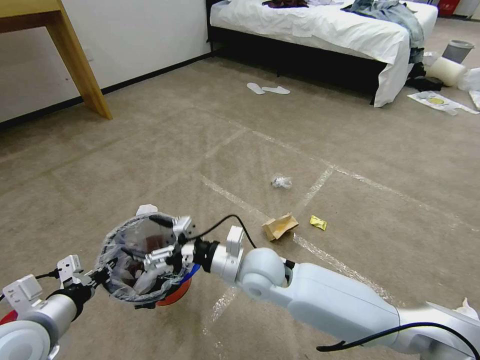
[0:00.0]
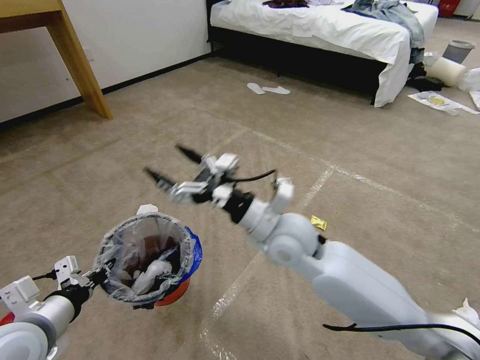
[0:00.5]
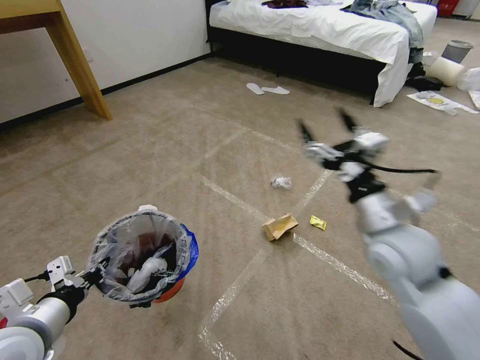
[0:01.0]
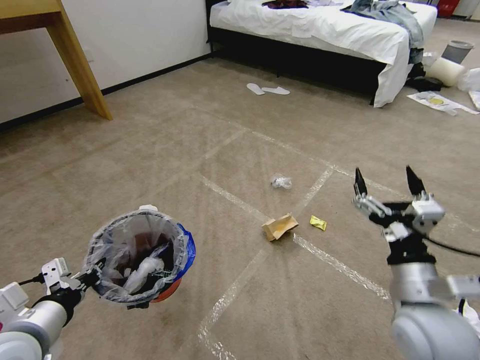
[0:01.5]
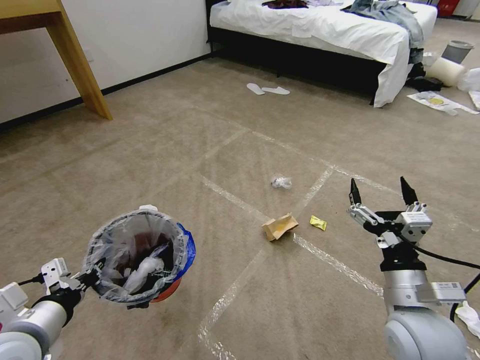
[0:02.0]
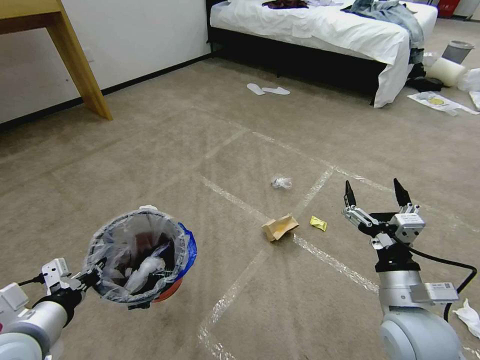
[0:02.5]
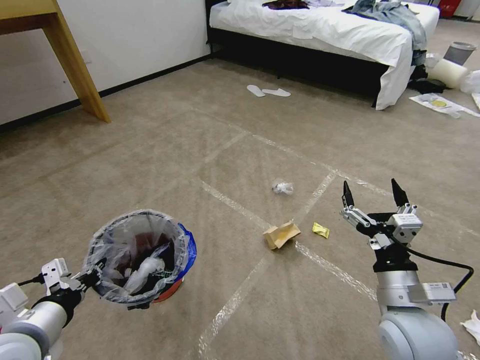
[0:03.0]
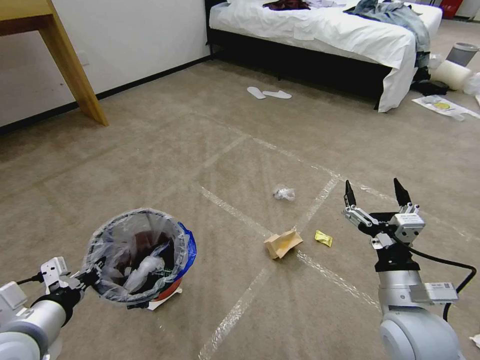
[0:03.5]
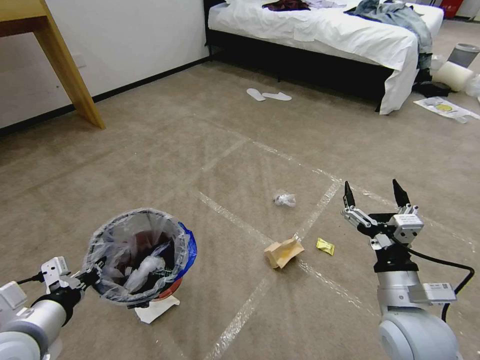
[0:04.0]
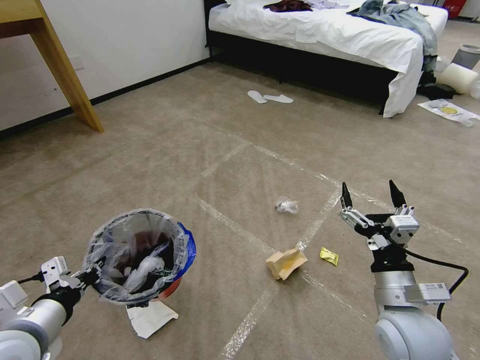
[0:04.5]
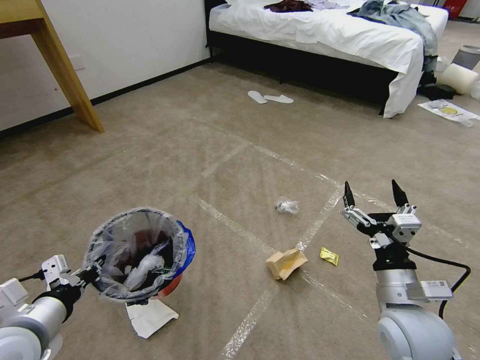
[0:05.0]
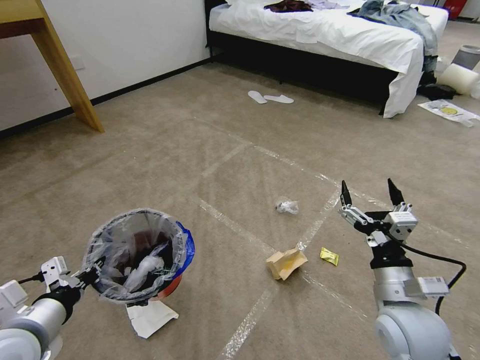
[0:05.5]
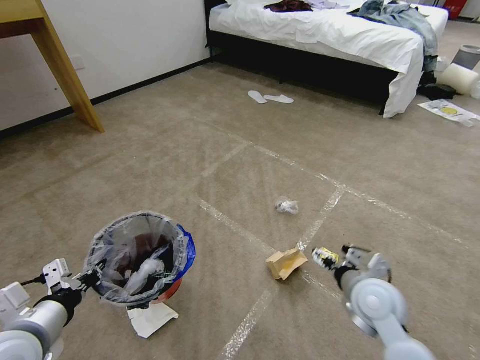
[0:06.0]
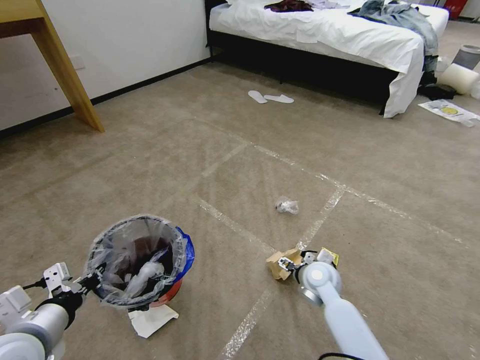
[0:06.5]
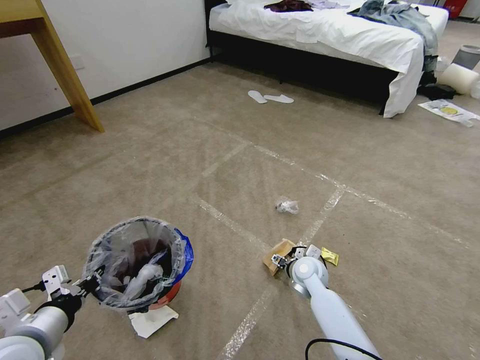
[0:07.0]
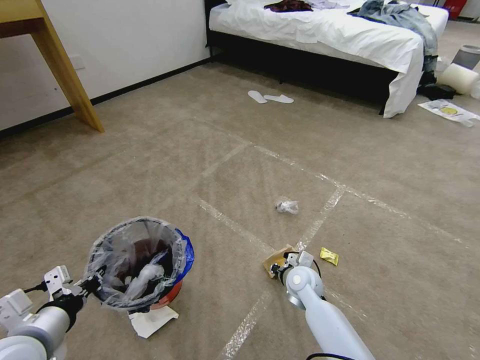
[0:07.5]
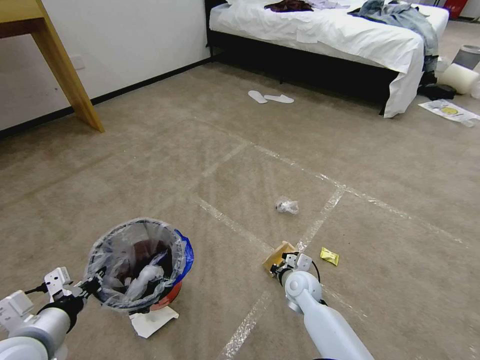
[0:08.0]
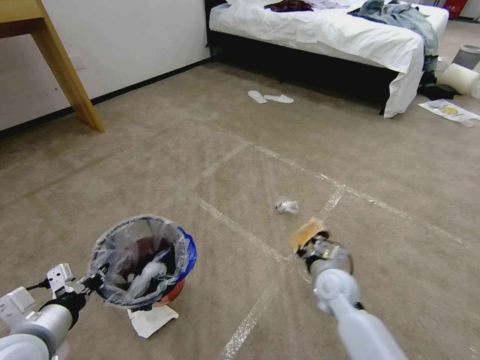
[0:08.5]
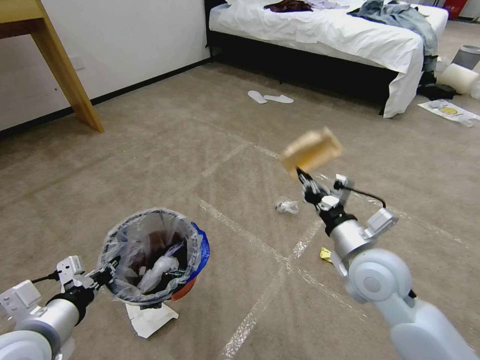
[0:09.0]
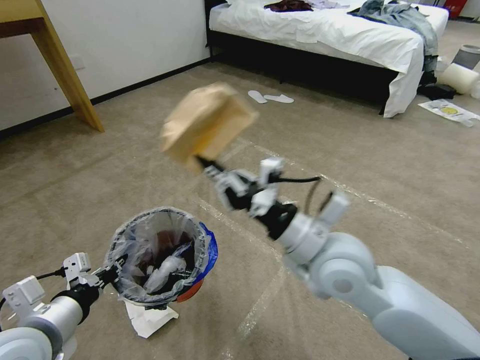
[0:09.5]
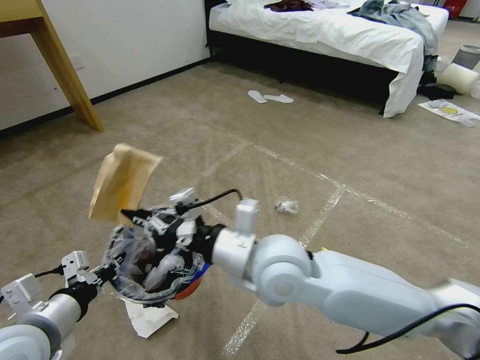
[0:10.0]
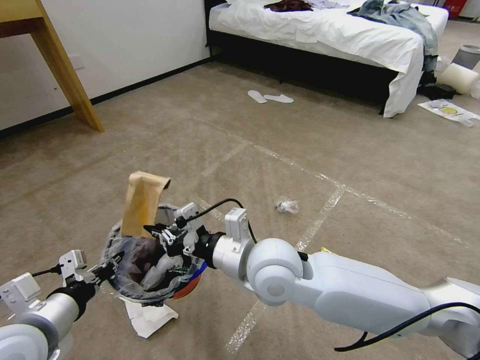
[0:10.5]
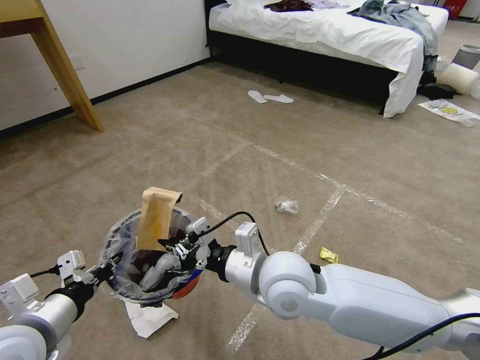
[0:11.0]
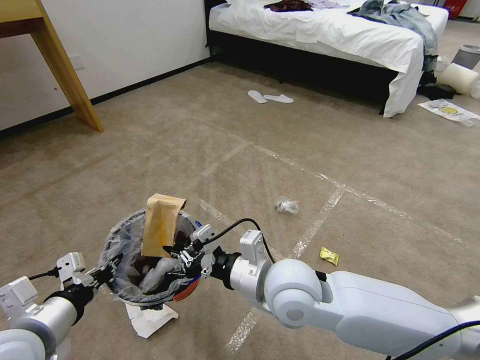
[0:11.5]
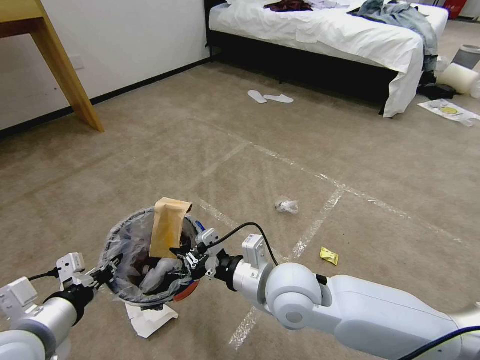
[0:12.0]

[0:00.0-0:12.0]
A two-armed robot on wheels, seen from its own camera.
Task of the whole recording: Pick up the trash bin and place the garbage on the floor into it.
0:00.0 to 0:02.0: The right gripper travels to the right and backward by roughly 25 cm.
0:02.0 to 0:04.0: Both grippers stay about where they are.
0:04.0 to 0:06.0: The right gripper is displaced forward by roughly 5 cm.
0:06.0 to 0:08.0: The right gripper travels downward, to the left and forward by roughly 20 cm, and closes its fingers.
0:08.0 to 0:10.0: The right gripper shifts approximately 30 cm upward and to the left.
0:10.0 to 0:12.0: The right gripper shifts roughly 5 cm downward.

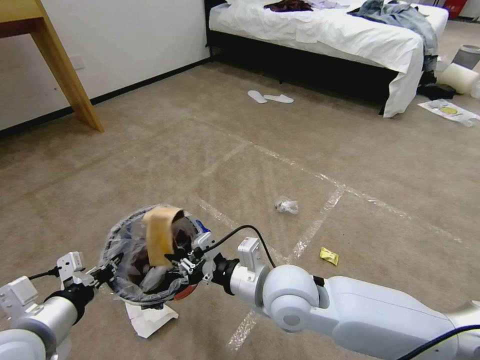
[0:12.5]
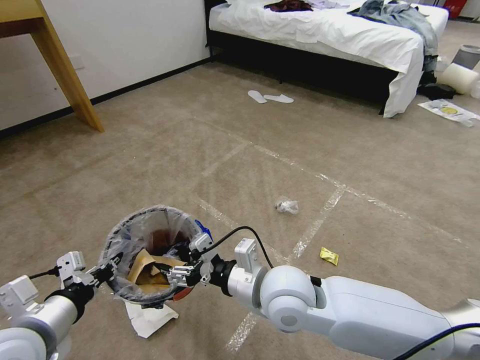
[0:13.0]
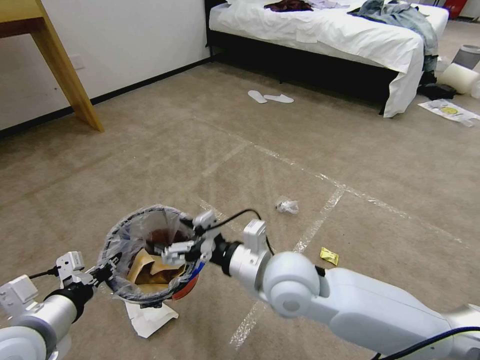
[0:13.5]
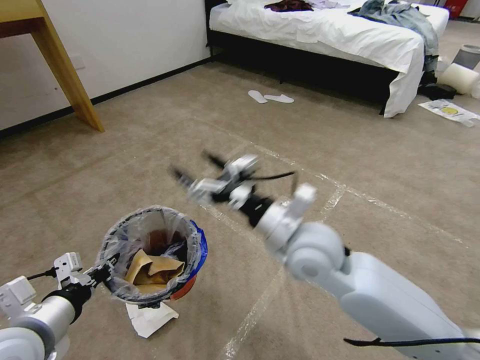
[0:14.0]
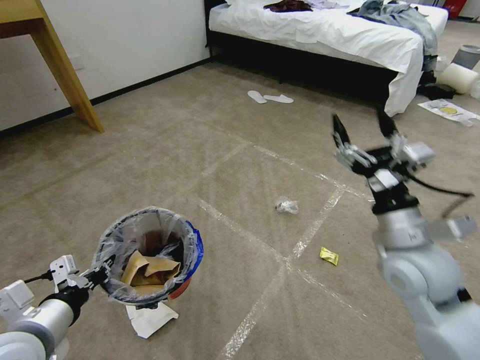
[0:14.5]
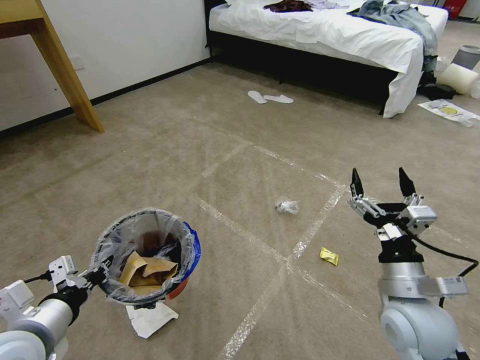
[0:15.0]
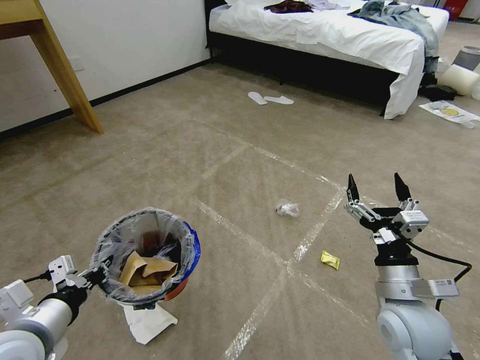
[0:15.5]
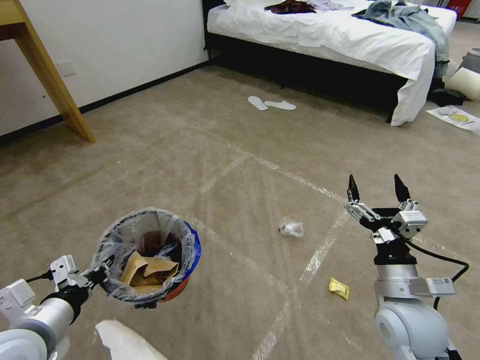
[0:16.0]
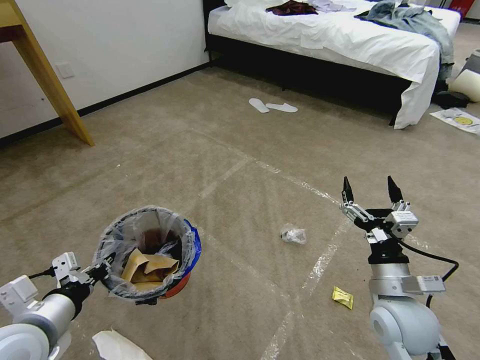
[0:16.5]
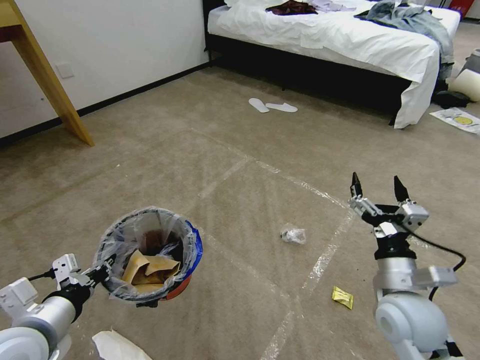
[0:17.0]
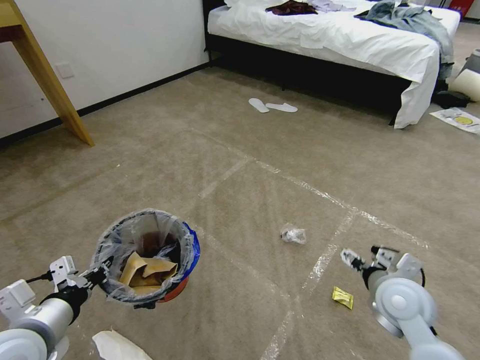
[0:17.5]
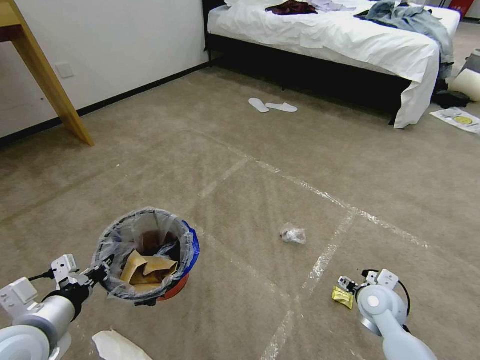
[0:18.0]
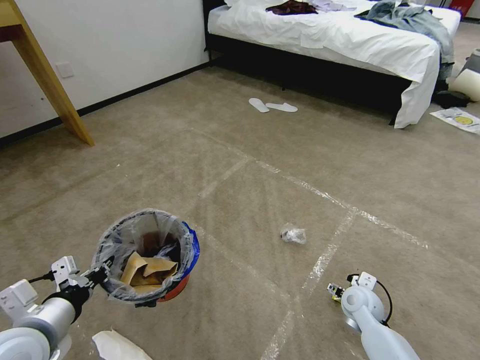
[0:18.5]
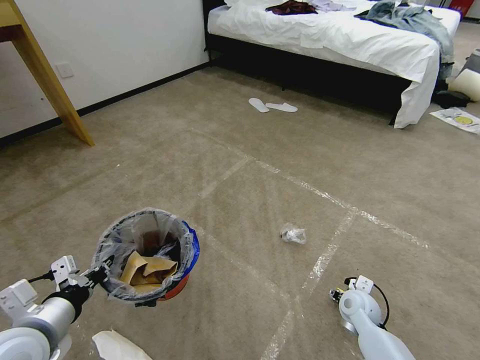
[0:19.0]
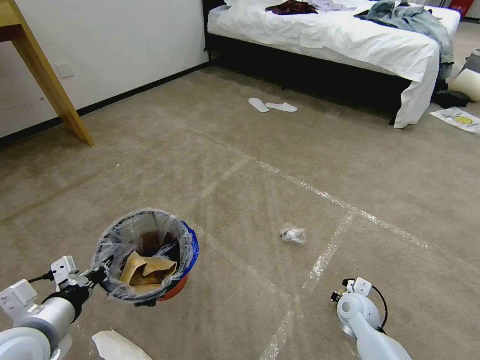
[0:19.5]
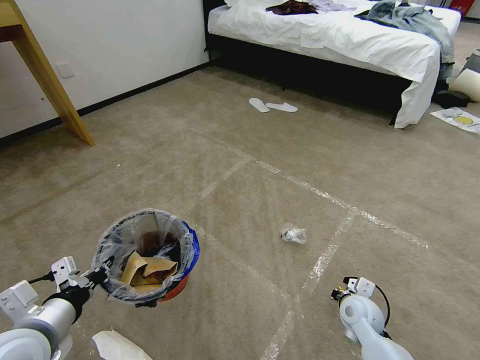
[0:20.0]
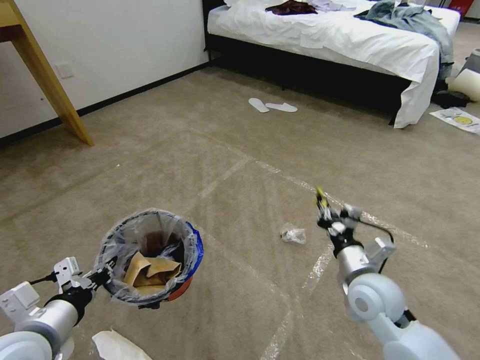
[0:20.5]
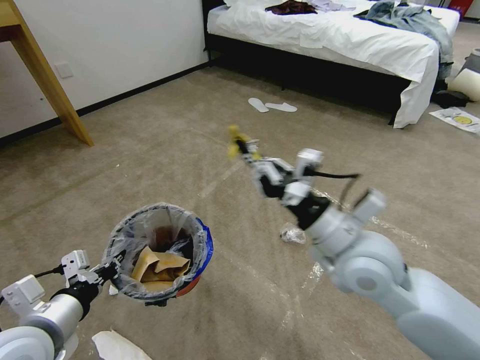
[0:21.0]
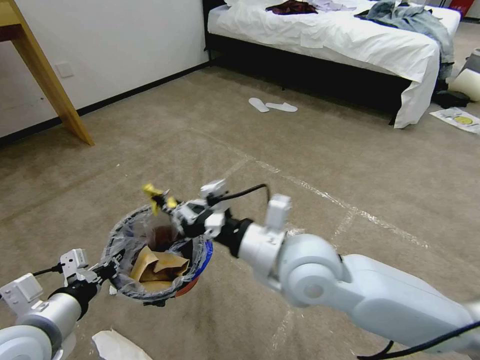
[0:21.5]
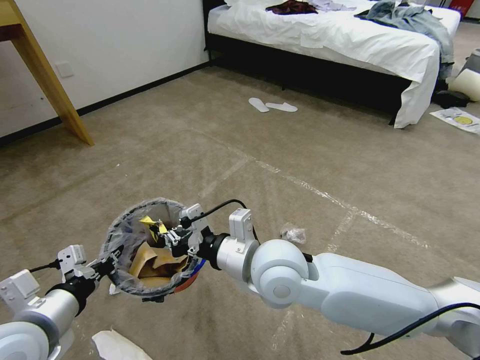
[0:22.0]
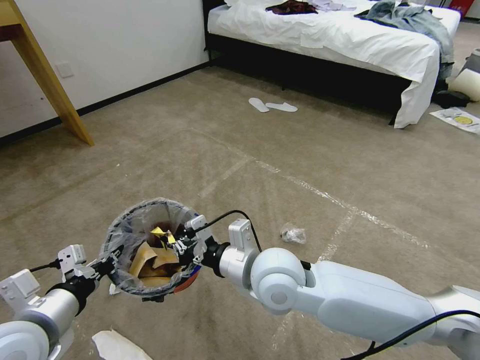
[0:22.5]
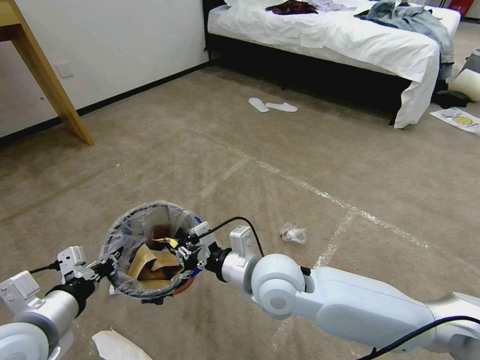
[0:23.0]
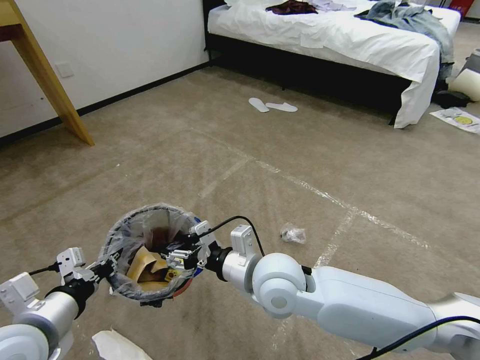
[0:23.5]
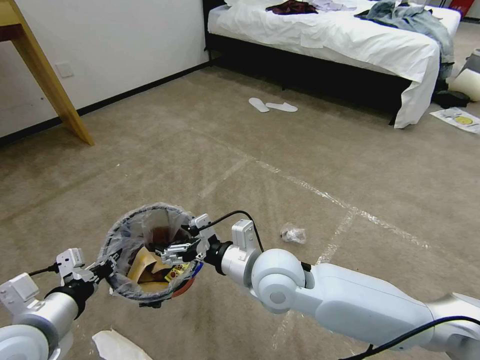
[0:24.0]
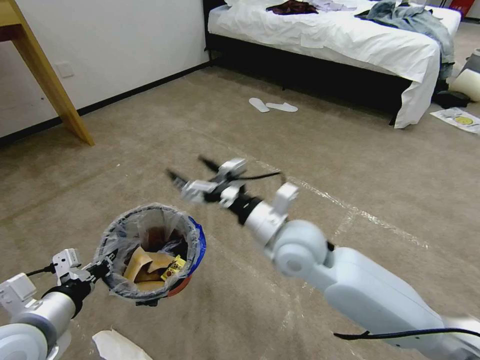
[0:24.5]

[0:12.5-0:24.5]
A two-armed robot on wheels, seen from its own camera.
Task of the whole recording: Pick up the trash bin and place the garbage on the floor into it.
0:12.5 to 0:14.5: The right gripper goes about 20 cm to the right, and opens.
0:14.5 to 0:16.5: The right gripper is displaced downward and backward by approximately 10 cm.
0:16.5 to 0:18.5: The right gripper moves downward and forward, about 20 cm.
0:18.5 to 0:20.5: The right gripper shifts roughly 15 cm upward, and closes.
0:20.5 to 0:22.5: The right gripper travels to the left by some 20 cm.
0:22.5 to 0:24.5: The right gripper shifts by some 5 cm, and opens its fingers.

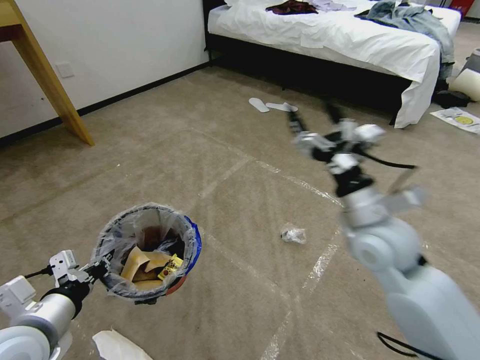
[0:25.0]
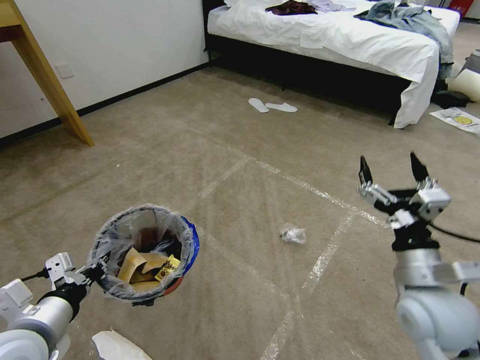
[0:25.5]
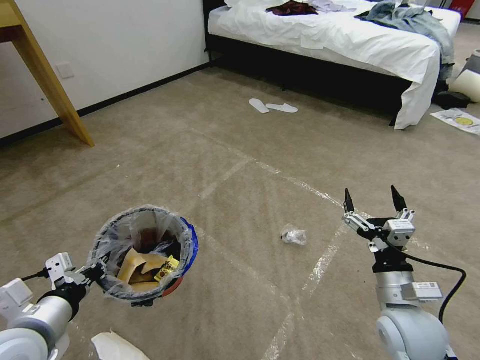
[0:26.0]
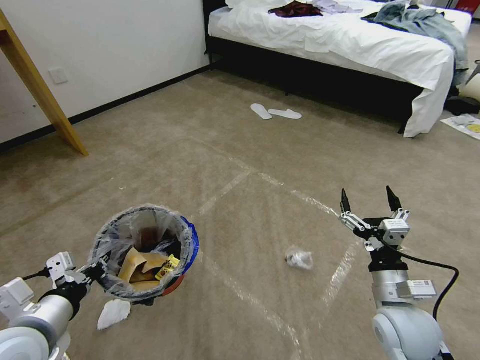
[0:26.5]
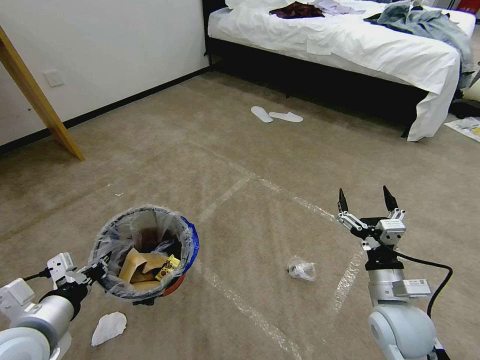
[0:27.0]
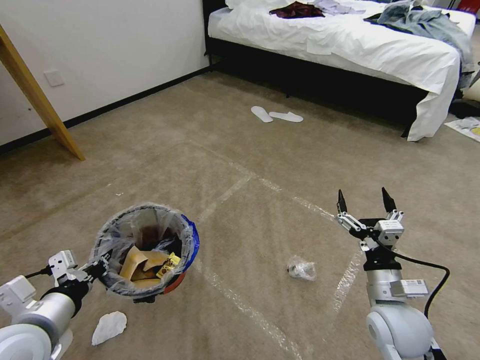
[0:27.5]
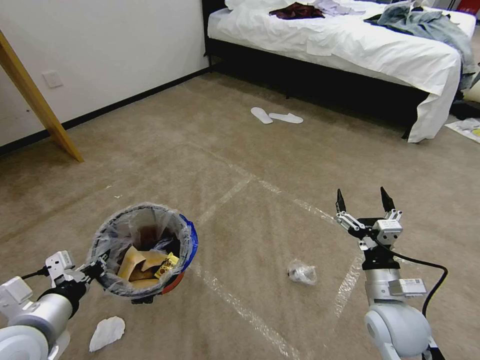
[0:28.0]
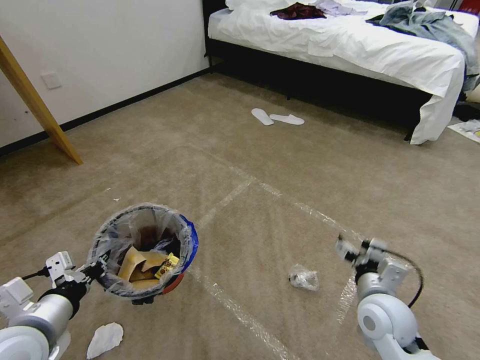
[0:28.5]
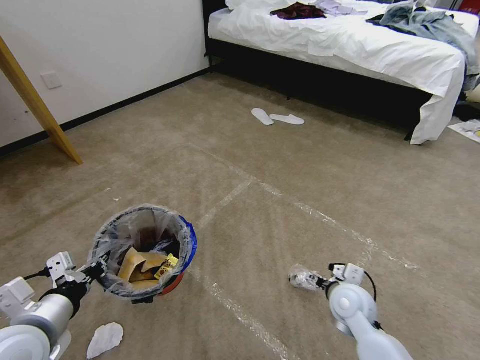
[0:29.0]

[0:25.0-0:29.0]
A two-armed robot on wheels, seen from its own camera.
Task of the whole recording: Pick up the trash bin and place the garbage on the floor into it.
0:25.0 to 0:27.0: The right gripper heads downward, backward and to the right, covering roughly 20 cm.
0:27.0 to 0:29.0: The right gripper is displaced downward and forward by about 10 cm.
